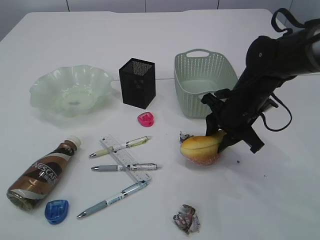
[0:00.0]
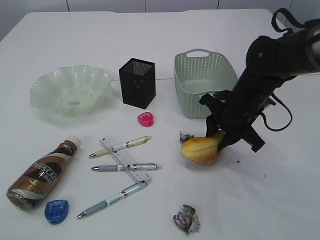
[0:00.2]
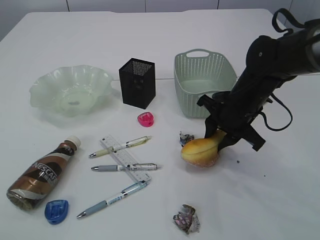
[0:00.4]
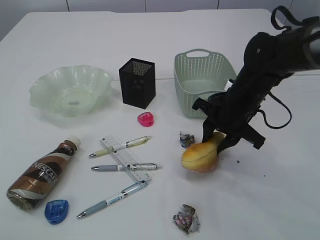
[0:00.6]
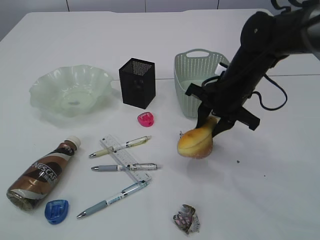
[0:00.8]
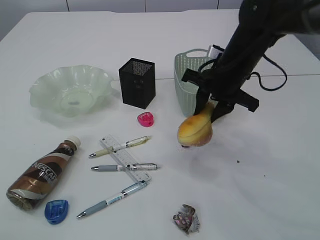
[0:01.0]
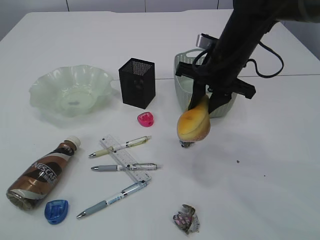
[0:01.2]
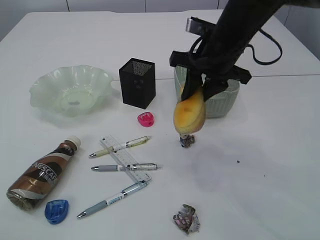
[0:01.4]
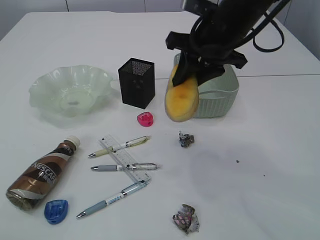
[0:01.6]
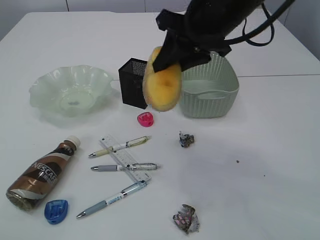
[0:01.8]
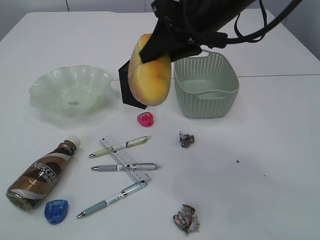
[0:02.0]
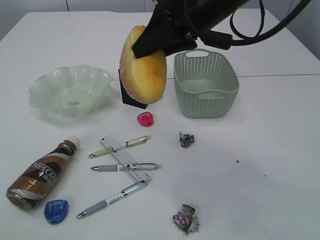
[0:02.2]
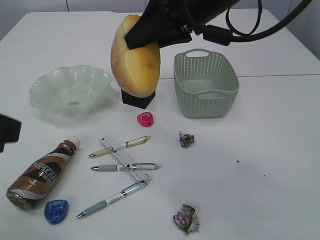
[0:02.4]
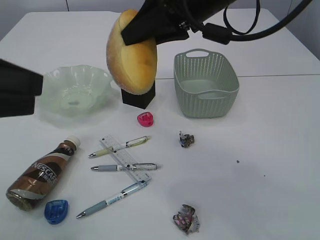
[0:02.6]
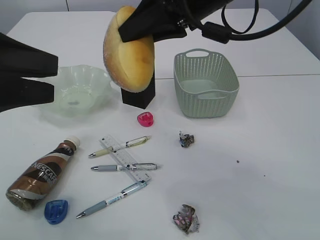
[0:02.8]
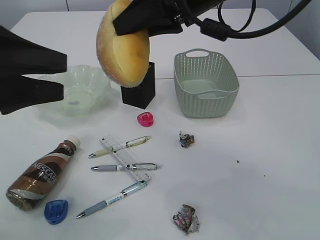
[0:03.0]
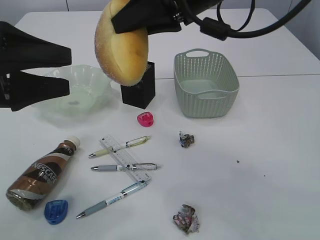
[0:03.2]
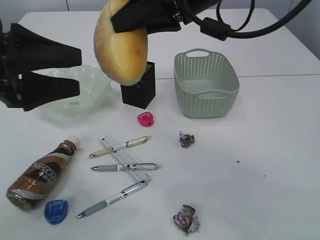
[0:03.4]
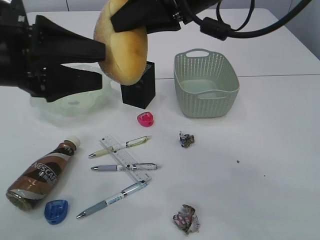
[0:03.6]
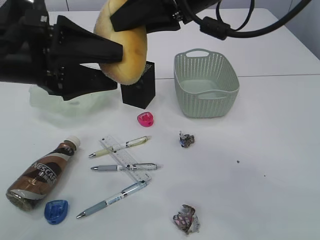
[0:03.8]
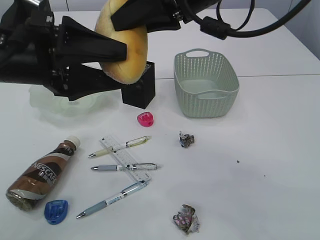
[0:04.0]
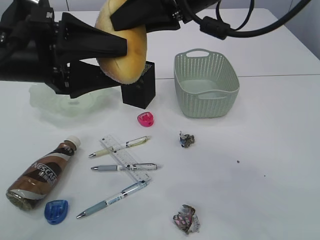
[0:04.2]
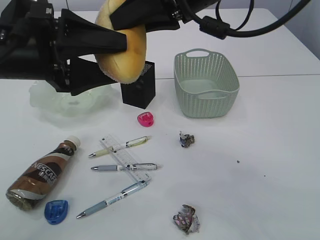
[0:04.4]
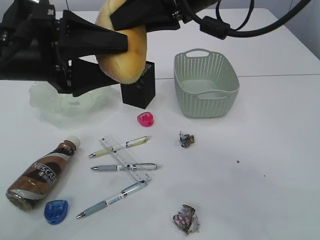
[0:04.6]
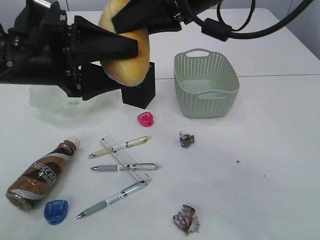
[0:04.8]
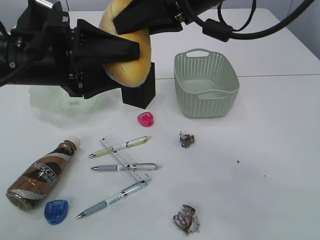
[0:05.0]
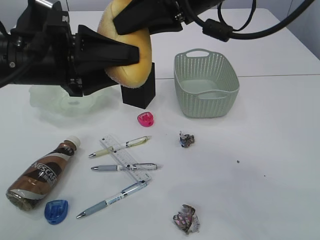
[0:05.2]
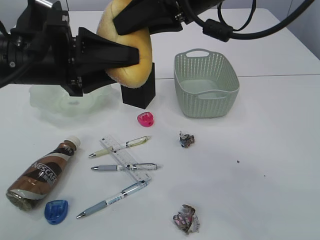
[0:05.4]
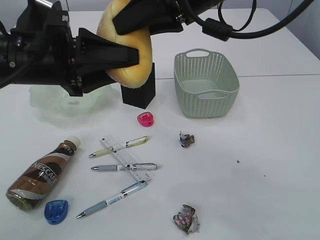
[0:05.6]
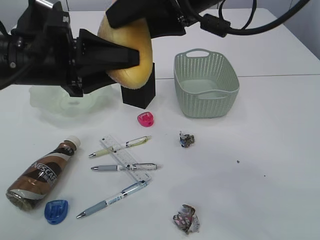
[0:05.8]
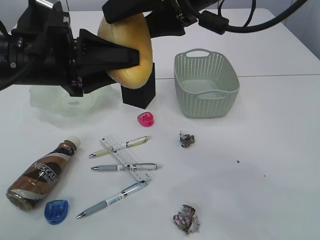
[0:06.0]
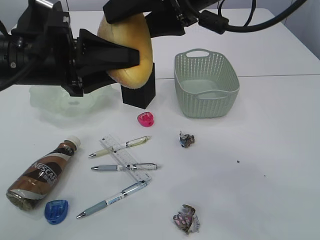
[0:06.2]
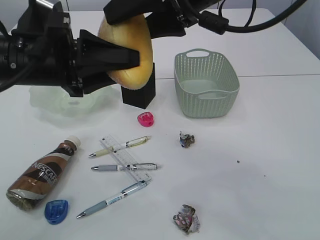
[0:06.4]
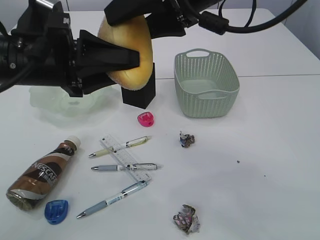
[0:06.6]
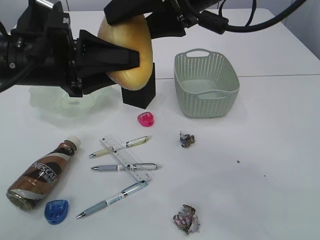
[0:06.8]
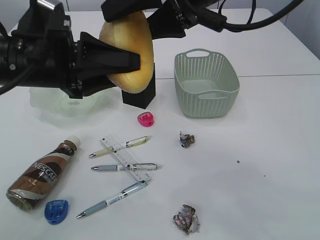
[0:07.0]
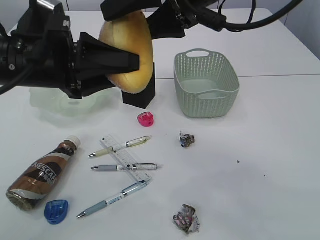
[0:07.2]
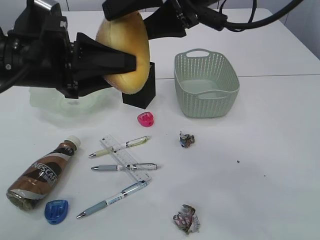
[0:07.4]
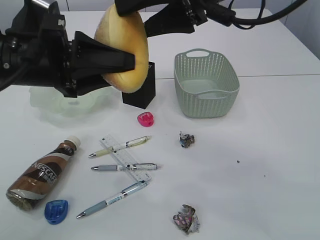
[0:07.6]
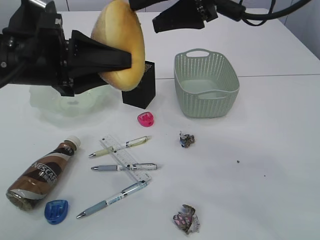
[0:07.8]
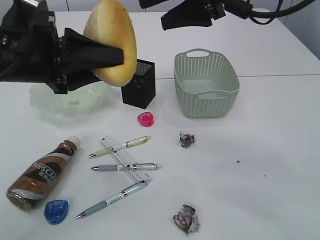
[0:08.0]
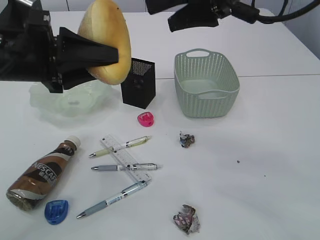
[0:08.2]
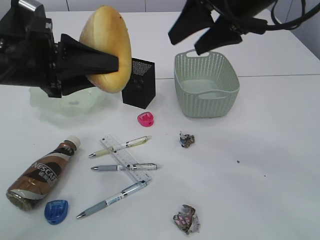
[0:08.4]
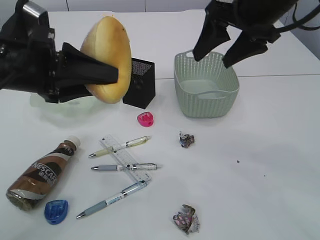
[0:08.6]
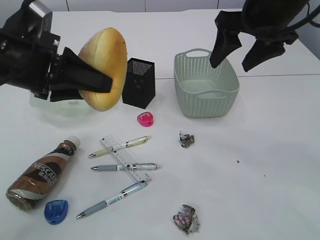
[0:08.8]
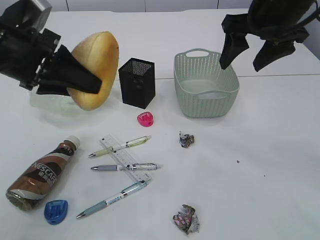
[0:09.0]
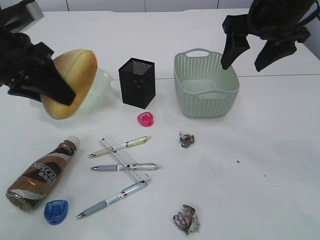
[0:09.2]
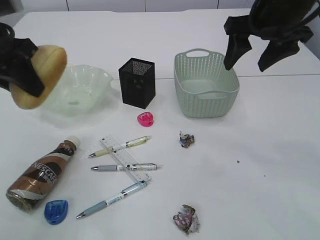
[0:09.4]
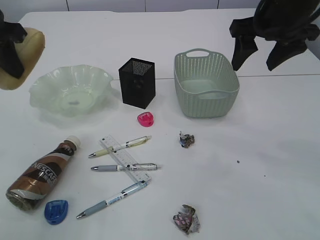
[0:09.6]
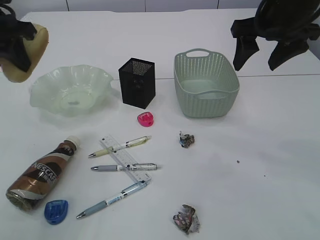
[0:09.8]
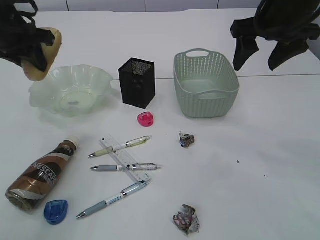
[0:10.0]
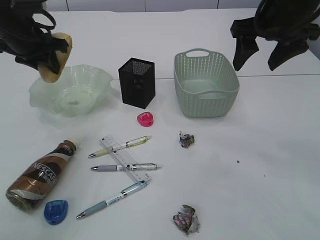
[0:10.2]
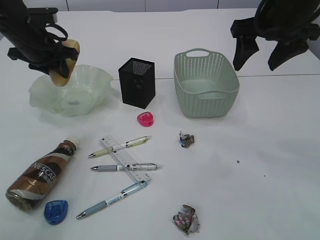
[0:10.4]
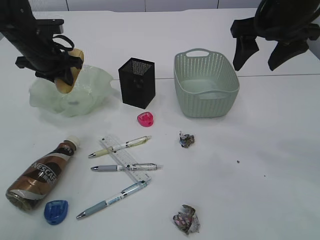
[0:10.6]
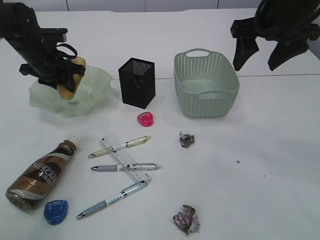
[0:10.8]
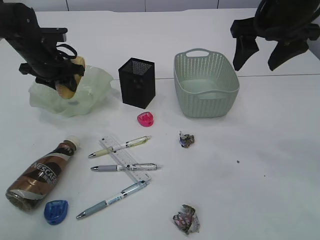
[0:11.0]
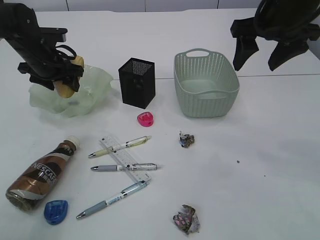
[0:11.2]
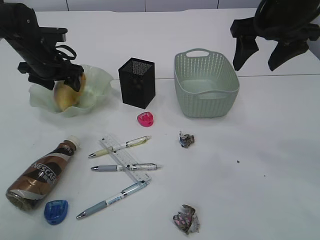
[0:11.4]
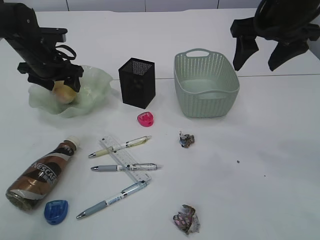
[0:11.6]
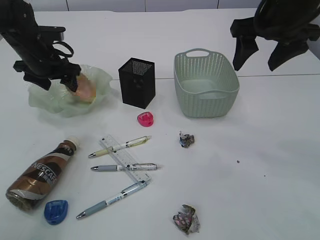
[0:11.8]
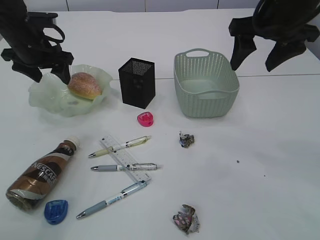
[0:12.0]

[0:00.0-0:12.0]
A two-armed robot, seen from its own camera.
Step, 0:01.0 to 0:07.6: Hand over the bread.
0:00.0 to 0:01.6: The right gripper travels upward by roughly 15 cm.
0:01.6 to 0:03.0: The right gripper goes about 5 cm upward; the left gripper heads forward, covering roughly 20 cm.
0:03.0 to 0:04.4: The left gripper is displaced to the right by approximately 5 cm.
0:04.4 to 0:06.0: The right gripper opens its fingers. The left gripper closes its fingers.
0:06.0 to 0:07.6: The grippers stay close to where they were, moving slightly.
0:07.6 to 0:09.0: The right gripper shifts roughly 10 cm to the right.
0:09.0 to 0:10.4: The left gripper travels forward by about 15 cm.
0:10.4 to 0:12.0: The left gripper opens its fingers.

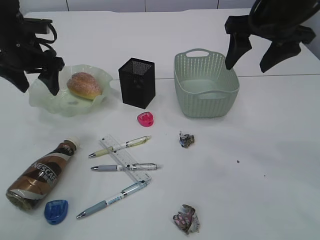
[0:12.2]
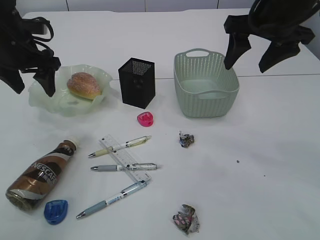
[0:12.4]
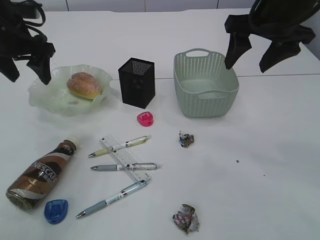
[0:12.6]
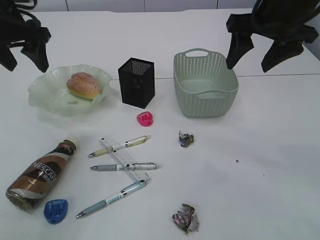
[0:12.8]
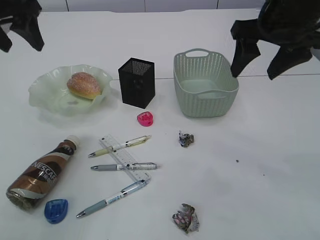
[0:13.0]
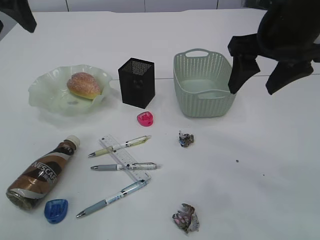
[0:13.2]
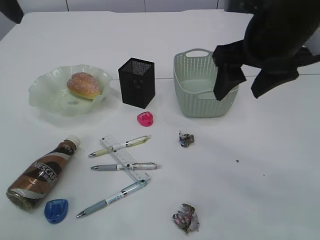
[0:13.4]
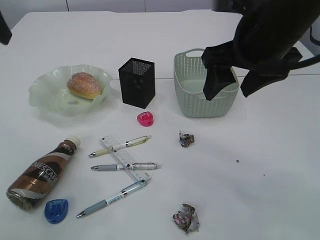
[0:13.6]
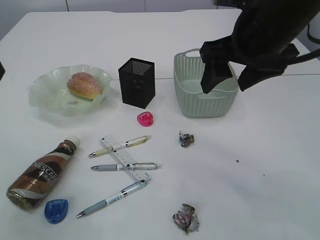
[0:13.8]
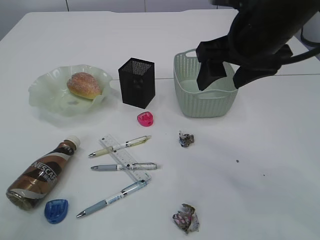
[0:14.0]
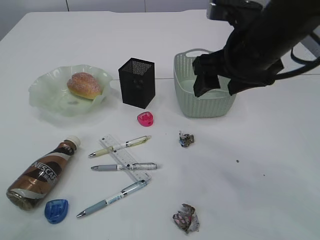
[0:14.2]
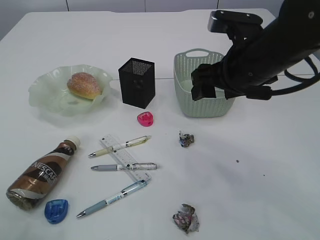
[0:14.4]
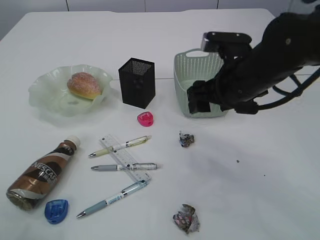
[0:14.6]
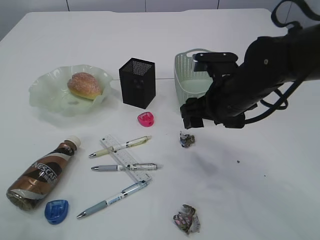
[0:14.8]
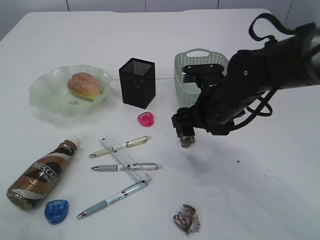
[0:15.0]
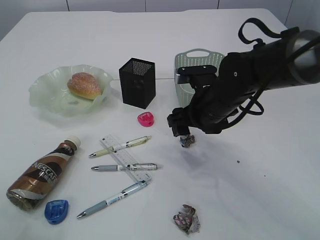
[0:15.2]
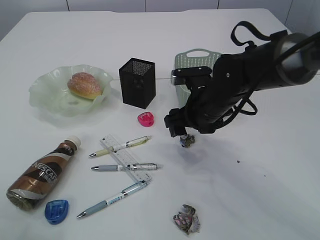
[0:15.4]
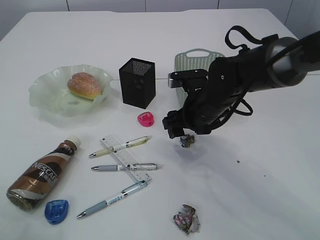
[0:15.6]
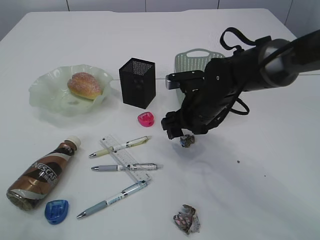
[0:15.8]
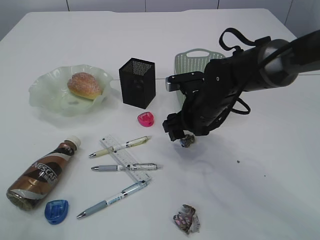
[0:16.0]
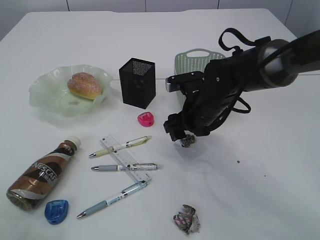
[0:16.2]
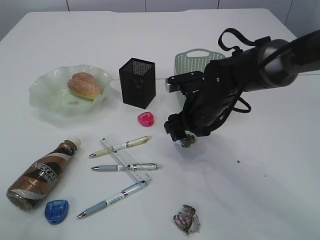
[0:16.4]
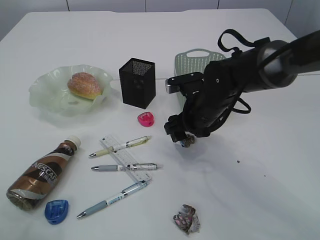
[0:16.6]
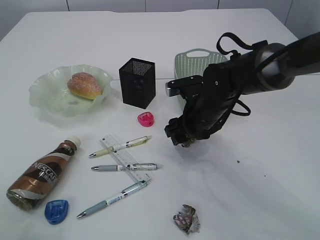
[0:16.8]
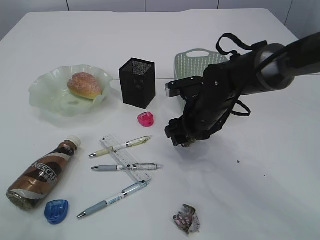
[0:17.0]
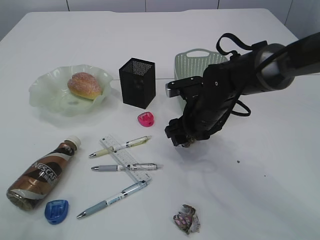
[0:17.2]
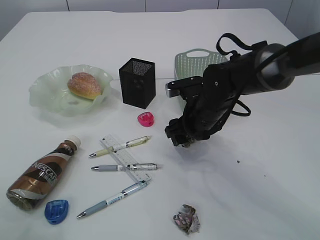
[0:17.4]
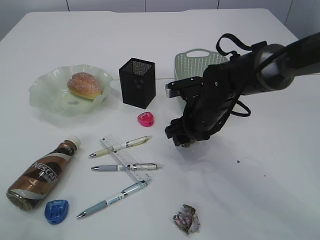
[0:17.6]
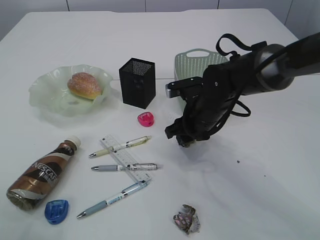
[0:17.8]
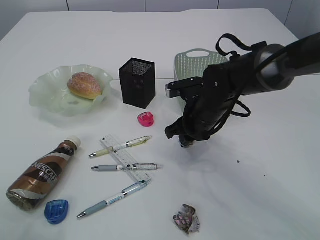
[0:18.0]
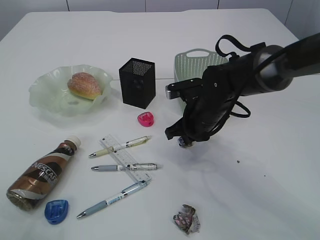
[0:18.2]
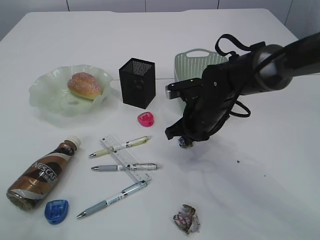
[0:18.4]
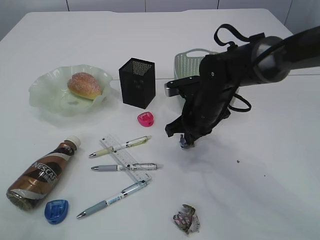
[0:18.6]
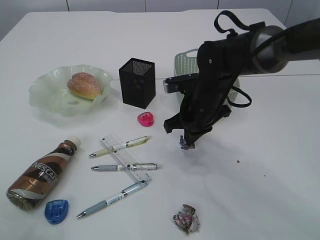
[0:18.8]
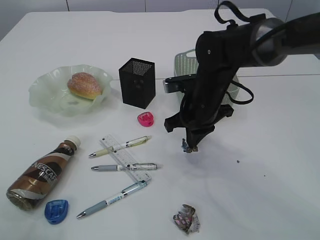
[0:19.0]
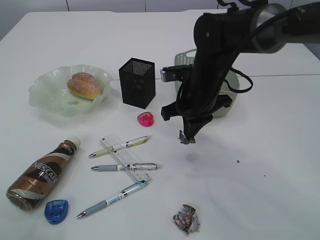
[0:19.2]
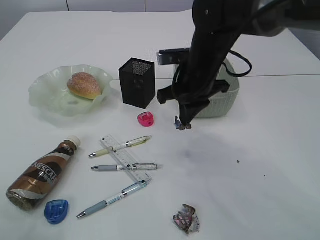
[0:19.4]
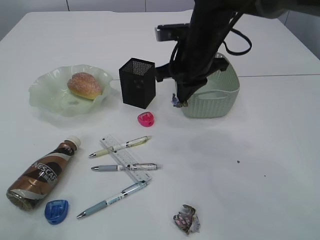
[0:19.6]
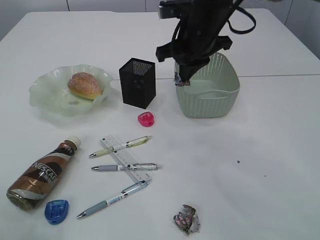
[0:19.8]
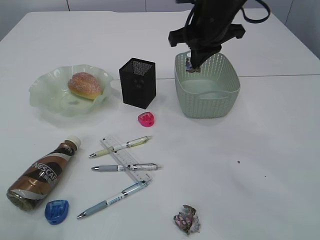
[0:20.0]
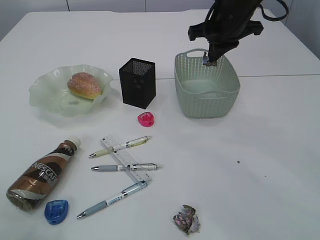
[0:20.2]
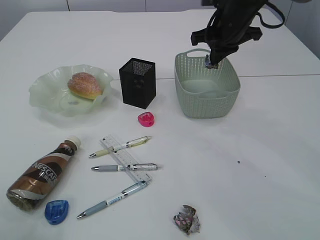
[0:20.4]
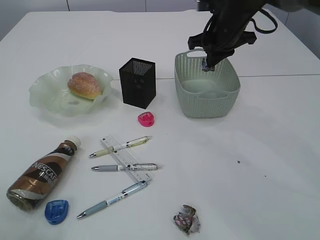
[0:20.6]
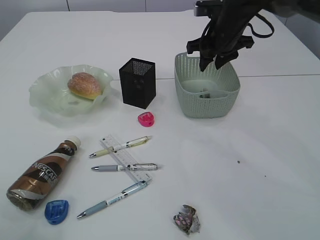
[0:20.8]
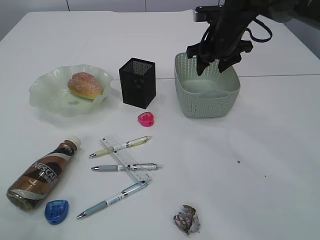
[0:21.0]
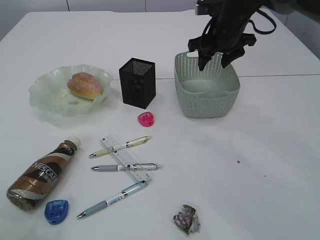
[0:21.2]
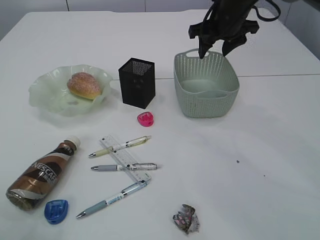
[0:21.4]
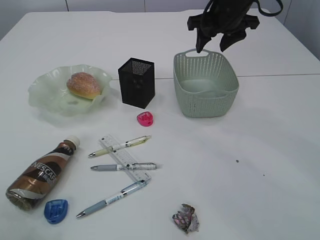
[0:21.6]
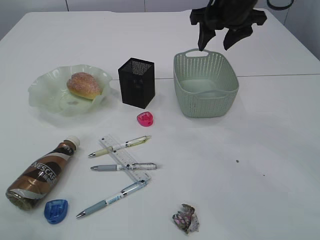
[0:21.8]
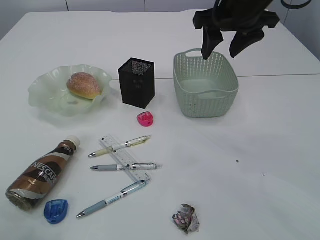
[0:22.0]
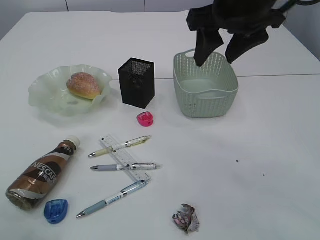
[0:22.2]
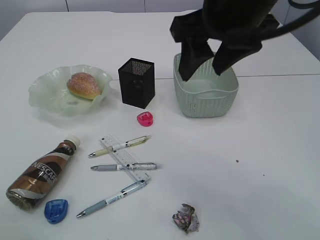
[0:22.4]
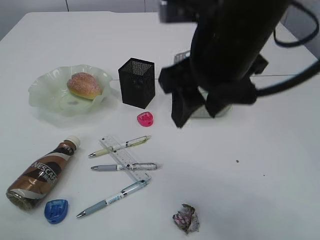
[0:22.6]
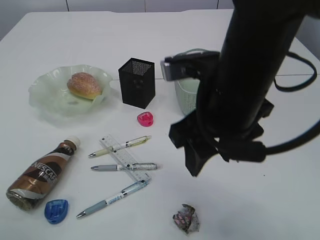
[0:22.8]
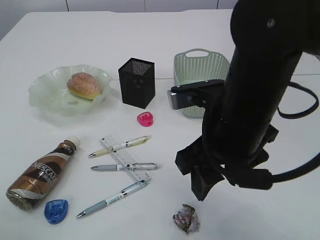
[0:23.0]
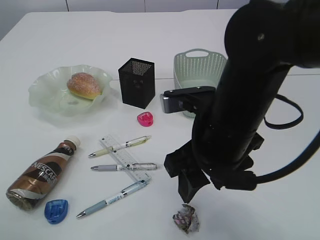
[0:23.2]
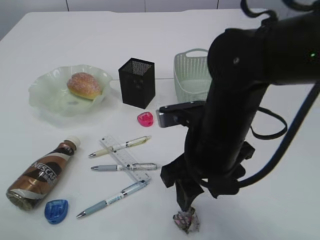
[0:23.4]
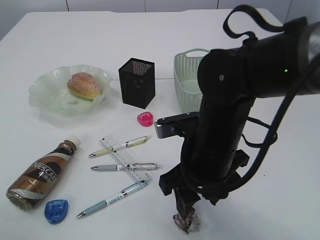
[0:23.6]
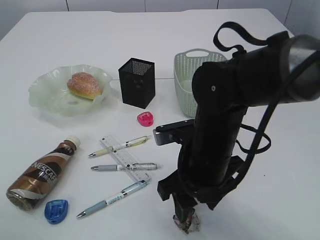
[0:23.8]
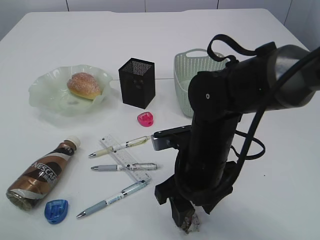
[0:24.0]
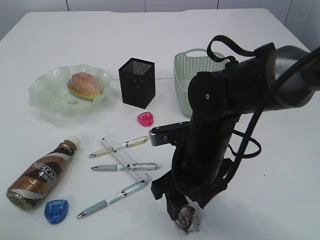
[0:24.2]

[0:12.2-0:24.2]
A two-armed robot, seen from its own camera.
Step, 0:12.2 to 0:19.0: Pick up the waste paper.
Step, 0:19.2 to 0:22.0: Place the waste paper in the basket.
0:12.2 to 0:13.8: The left gripper heads backward and upward, covering approximately 20 cm; the right gripper shifts approximately 10 cm backward and to the left.
0:13.8 to 0:15.2: The right gripper goes roughly 15 cm downward. The left gripper moves backward, about 10 cm.
0:15.2 to 0:16.6: The grippers move only a little.
0:16.6 to 0:18.2: The right gripper closes its fingers.
0:18.2 to 0:19.8: The right gripper moves upward, about 15 cm.
0:19.8 to 0:21.2: The right gripper goes approximately 10 cm forward and to the right, and opens up.
0:21.2 to 0:22.6: The right gripper moves backward, some 20 cm.
0:22.6 to 0:24.2: The right gripper goes about 20 cm downward.
